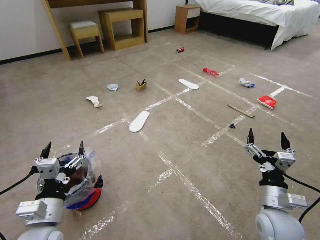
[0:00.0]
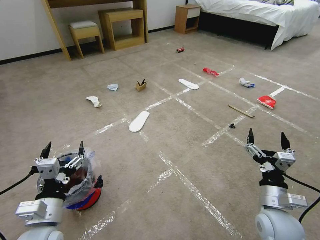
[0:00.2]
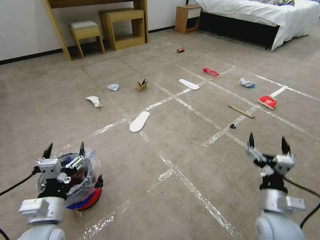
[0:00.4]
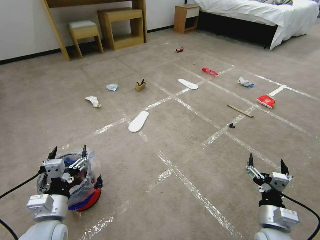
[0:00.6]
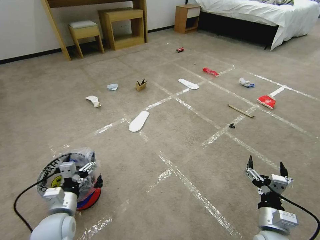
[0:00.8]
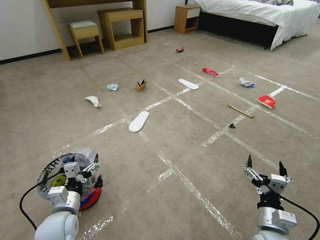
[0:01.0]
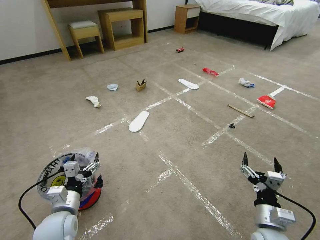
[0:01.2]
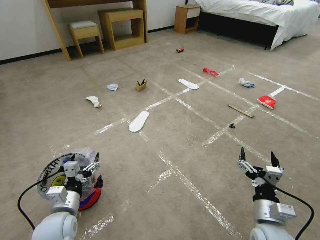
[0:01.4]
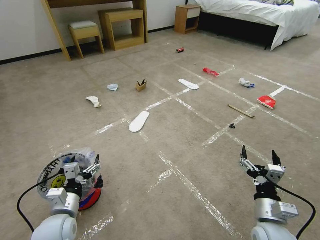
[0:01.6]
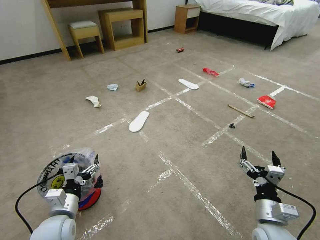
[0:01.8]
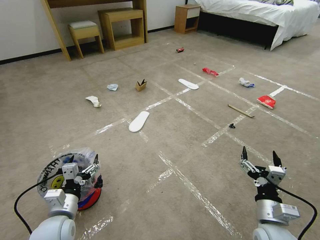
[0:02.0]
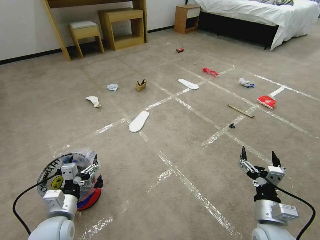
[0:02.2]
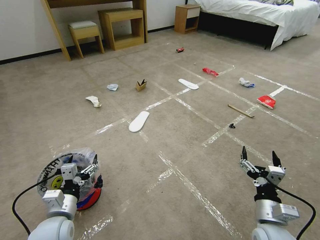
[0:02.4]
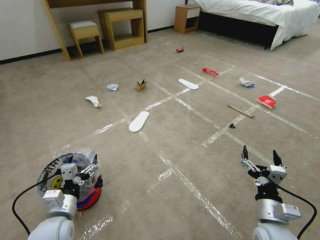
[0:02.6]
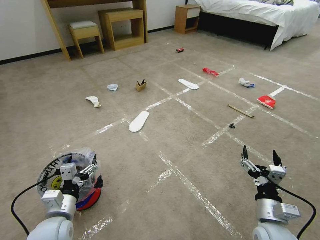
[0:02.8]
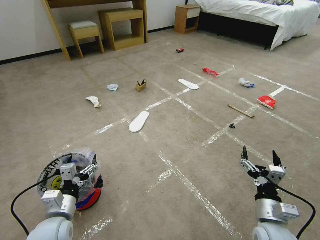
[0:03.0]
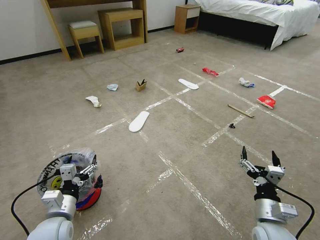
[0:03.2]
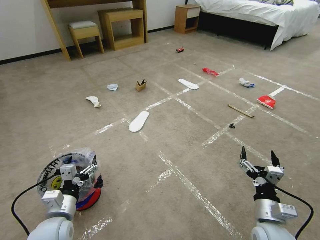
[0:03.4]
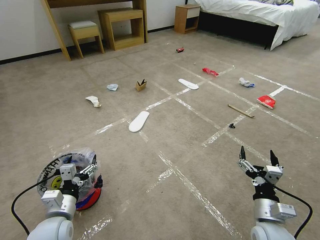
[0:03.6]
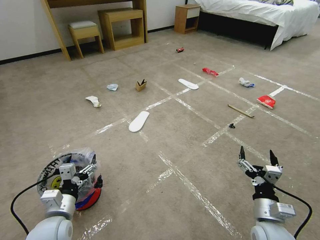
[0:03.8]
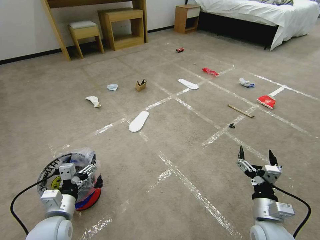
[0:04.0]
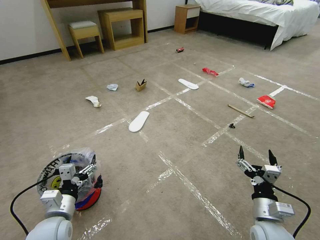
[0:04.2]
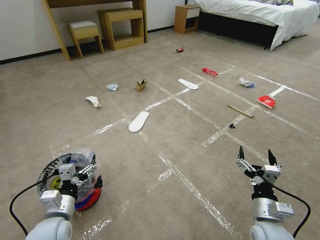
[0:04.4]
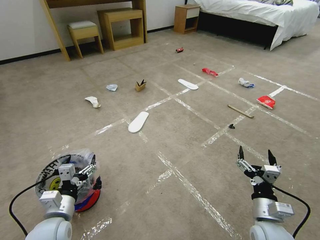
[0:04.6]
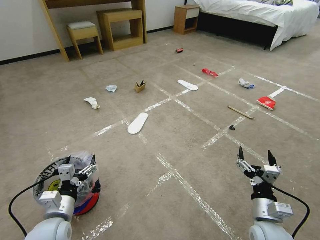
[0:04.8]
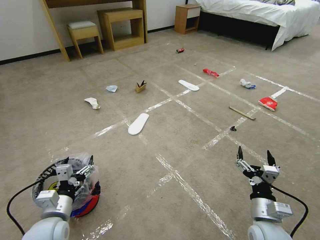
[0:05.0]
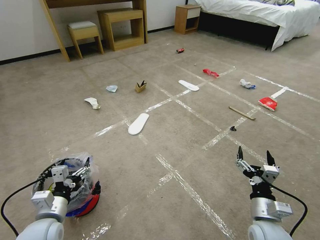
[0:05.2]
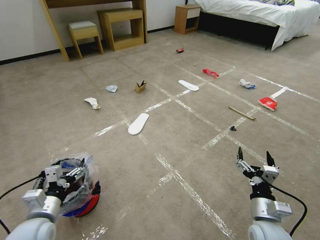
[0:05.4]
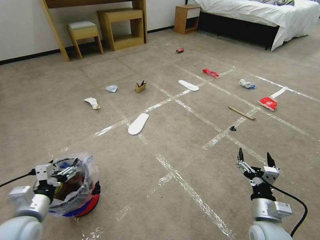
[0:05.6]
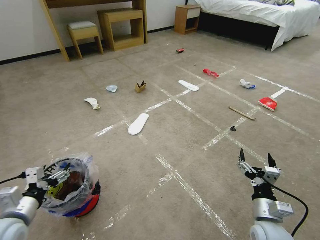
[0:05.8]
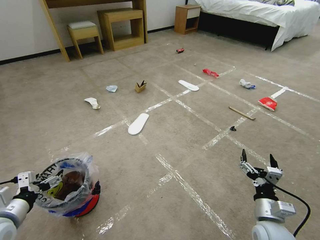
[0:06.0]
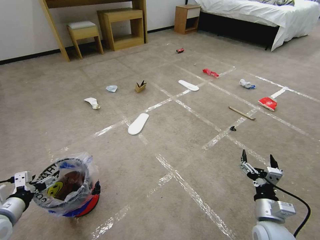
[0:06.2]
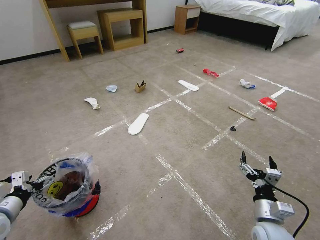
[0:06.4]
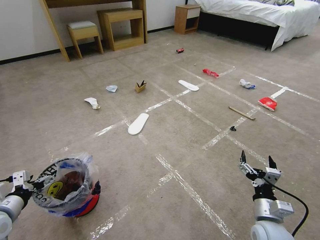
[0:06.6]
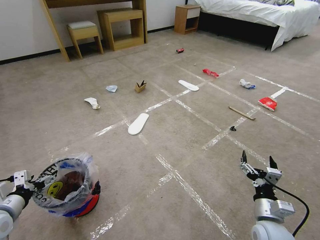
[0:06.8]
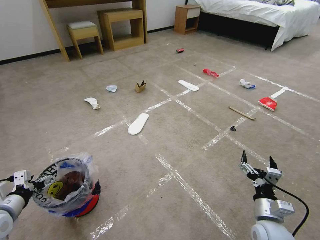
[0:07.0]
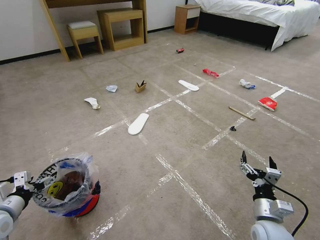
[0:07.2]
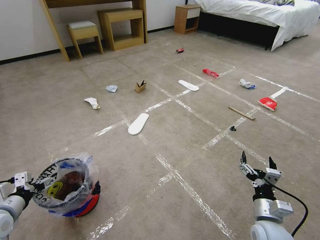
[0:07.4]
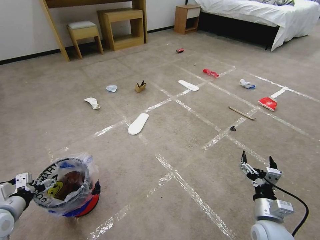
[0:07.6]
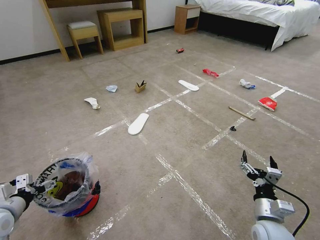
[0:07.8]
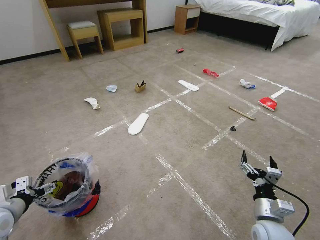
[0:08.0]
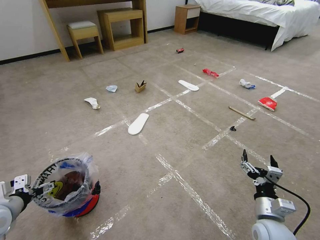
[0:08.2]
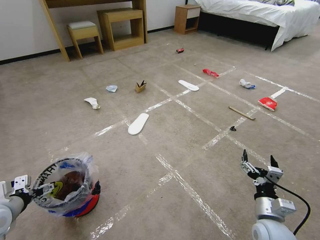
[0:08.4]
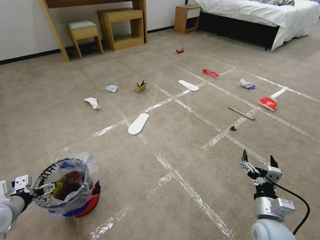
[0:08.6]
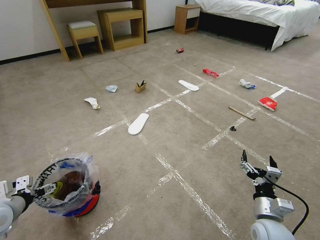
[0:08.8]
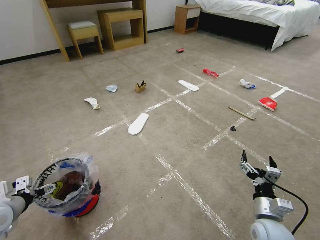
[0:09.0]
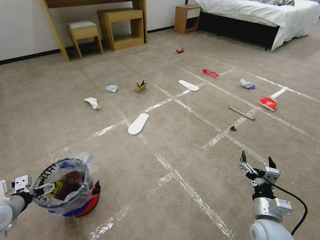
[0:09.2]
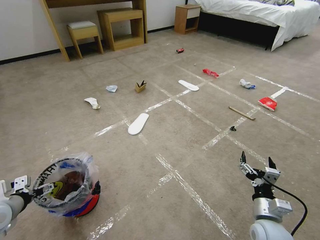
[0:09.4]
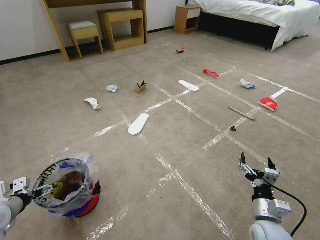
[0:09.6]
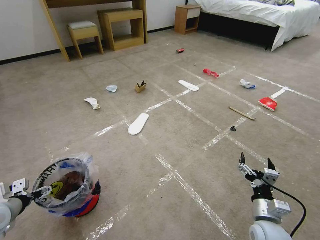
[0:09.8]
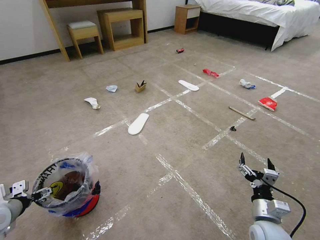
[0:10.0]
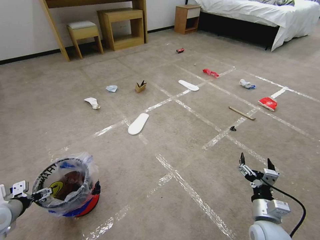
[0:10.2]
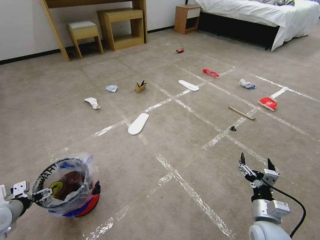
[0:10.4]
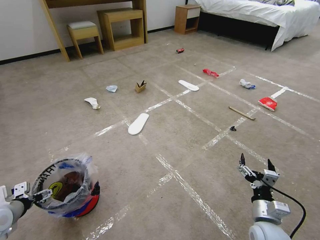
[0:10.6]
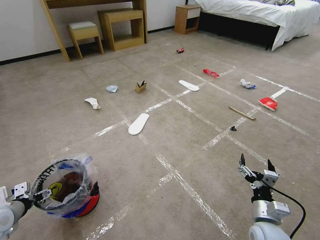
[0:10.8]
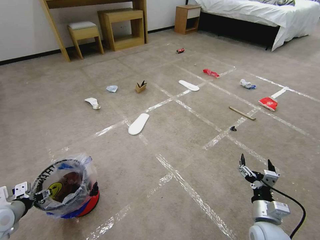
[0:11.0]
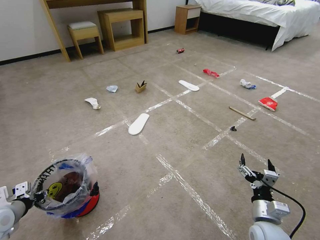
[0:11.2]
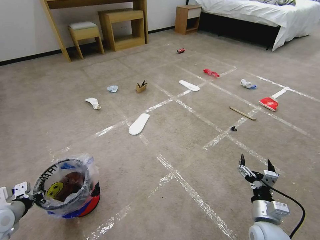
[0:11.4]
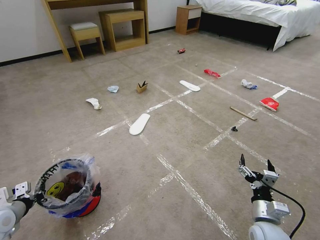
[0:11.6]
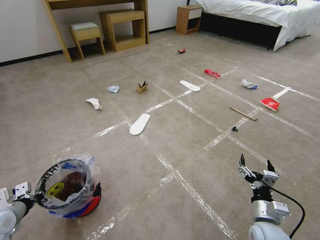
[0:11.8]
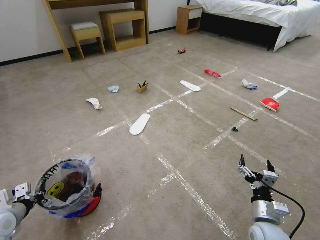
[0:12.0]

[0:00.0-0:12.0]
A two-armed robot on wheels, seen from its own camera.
Task of the whole recording: Pick up the trash bin and place the garbage on the floor into it.
0:01.6 to 0:03.0: Both grippers stay about where they are.
0:03.0 to 0:04.4: Both grippers stay about where they are.
0:04.4 to 0:06.0: The left gripper travels to the left by roughly 15 cm.
0:06.0 to 0:07.6: The left gripper moves approximately 5 cm.
0:07.6 to 0:10.4: The grippers stay close to where they were, moving slightly.
0:10.4 to 0:12.0: The left gripper closes up.

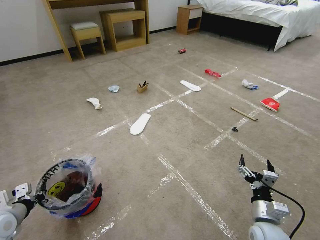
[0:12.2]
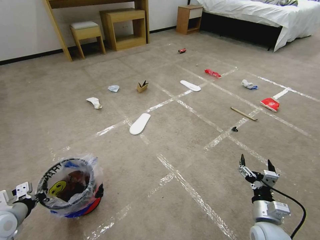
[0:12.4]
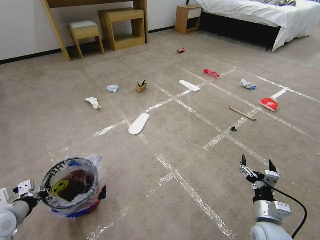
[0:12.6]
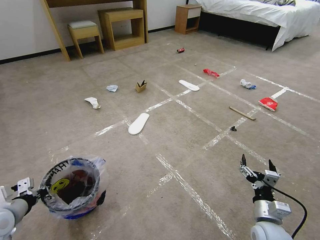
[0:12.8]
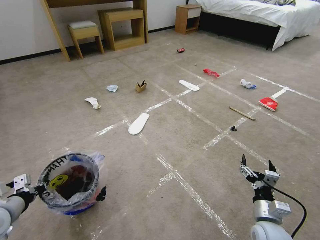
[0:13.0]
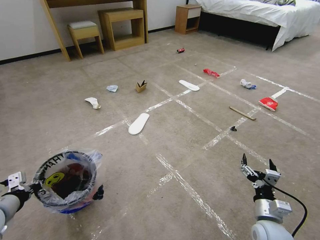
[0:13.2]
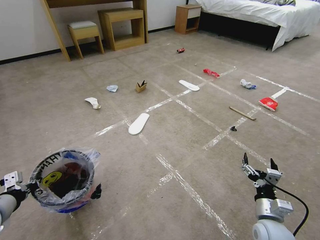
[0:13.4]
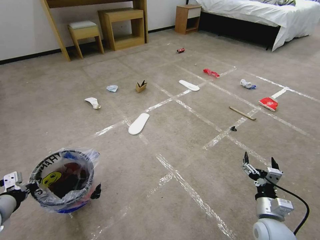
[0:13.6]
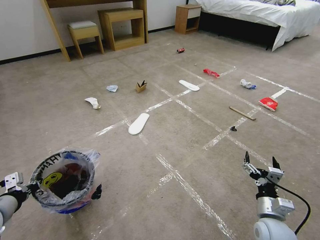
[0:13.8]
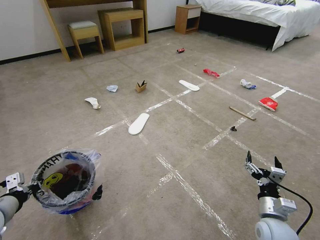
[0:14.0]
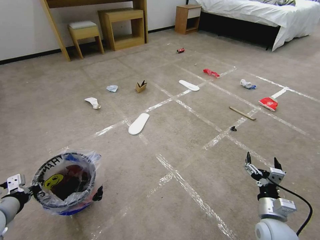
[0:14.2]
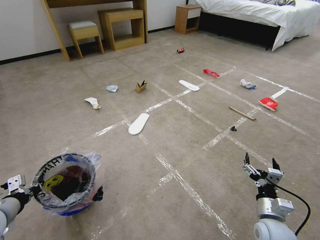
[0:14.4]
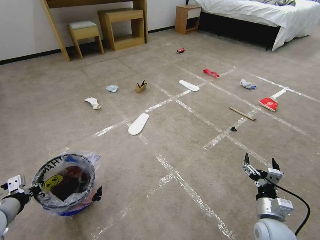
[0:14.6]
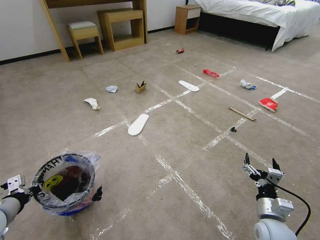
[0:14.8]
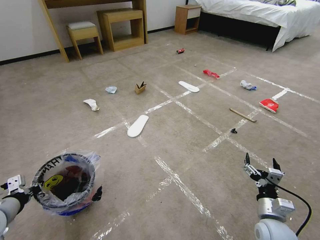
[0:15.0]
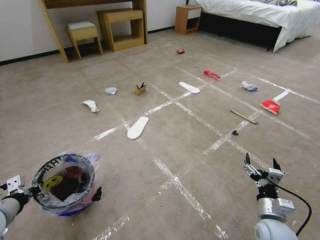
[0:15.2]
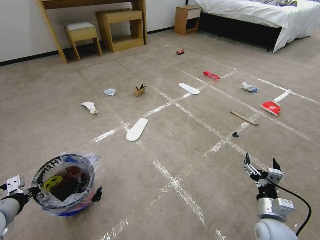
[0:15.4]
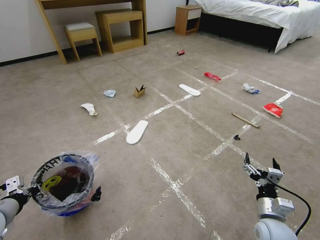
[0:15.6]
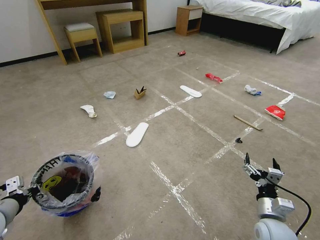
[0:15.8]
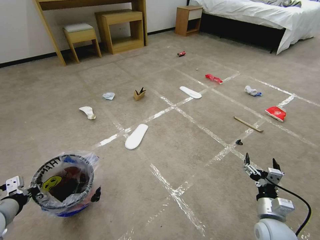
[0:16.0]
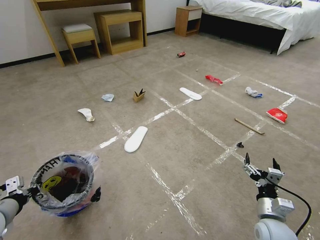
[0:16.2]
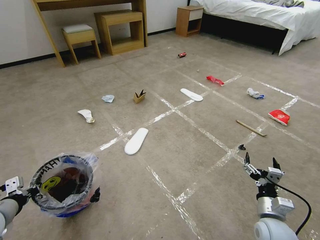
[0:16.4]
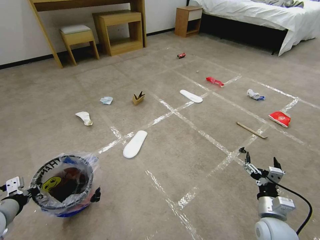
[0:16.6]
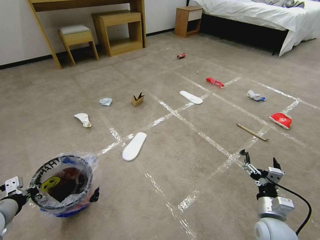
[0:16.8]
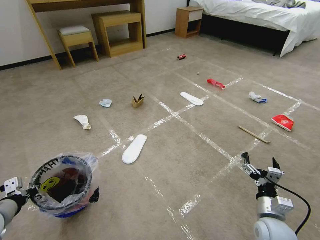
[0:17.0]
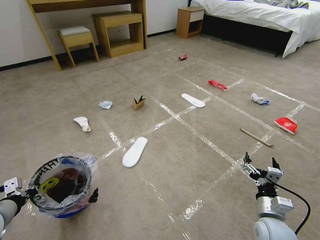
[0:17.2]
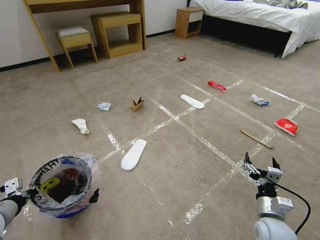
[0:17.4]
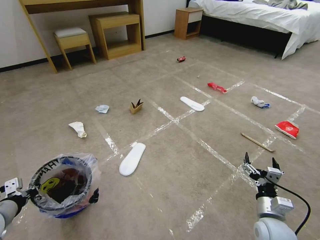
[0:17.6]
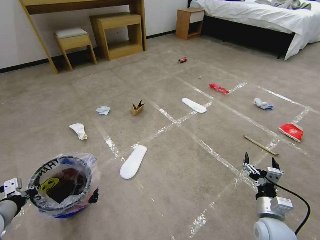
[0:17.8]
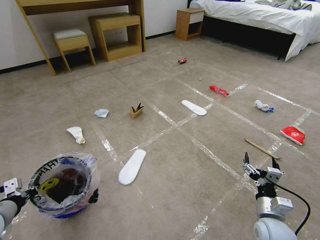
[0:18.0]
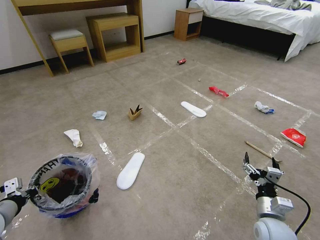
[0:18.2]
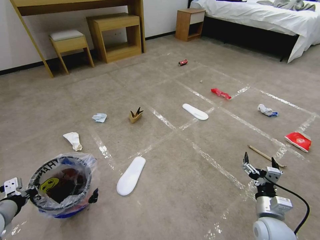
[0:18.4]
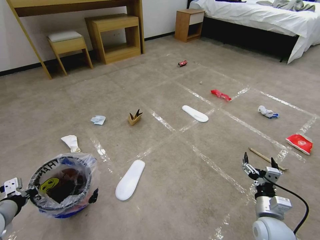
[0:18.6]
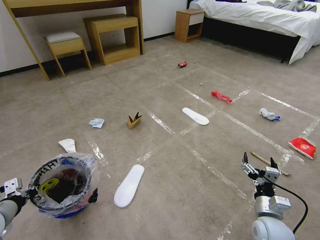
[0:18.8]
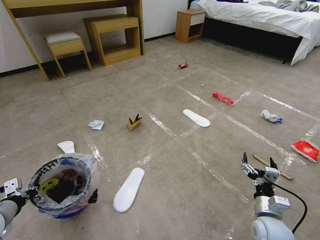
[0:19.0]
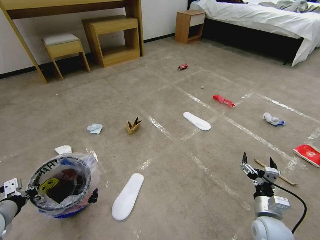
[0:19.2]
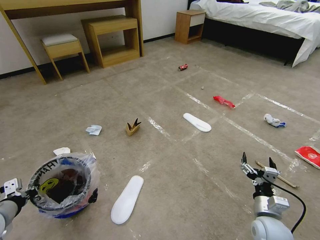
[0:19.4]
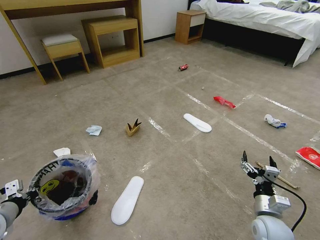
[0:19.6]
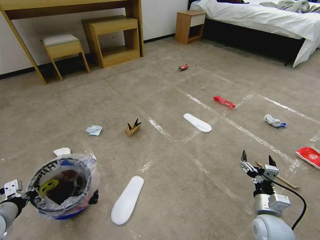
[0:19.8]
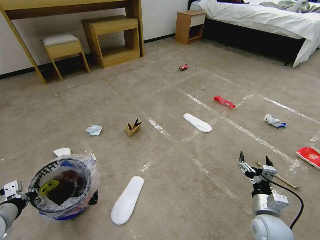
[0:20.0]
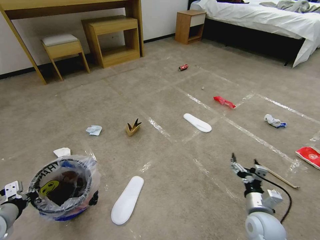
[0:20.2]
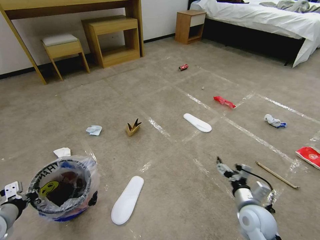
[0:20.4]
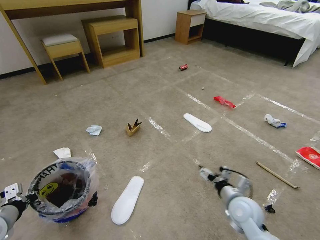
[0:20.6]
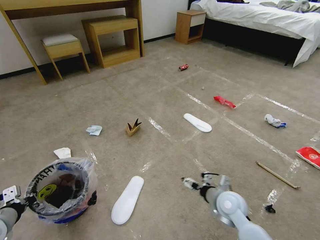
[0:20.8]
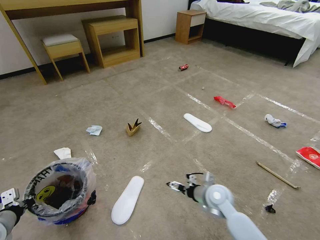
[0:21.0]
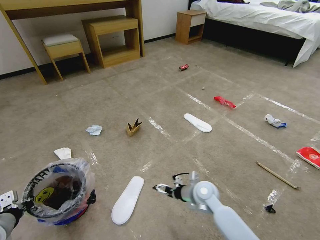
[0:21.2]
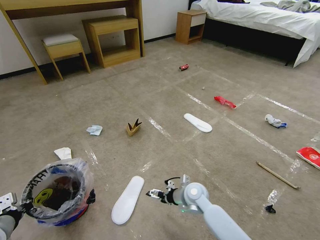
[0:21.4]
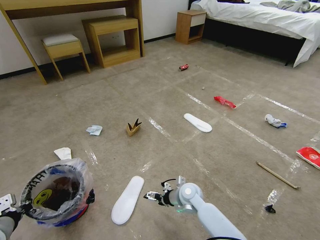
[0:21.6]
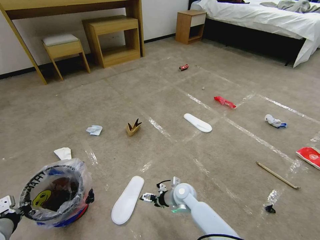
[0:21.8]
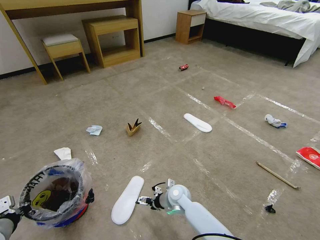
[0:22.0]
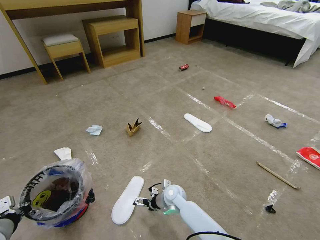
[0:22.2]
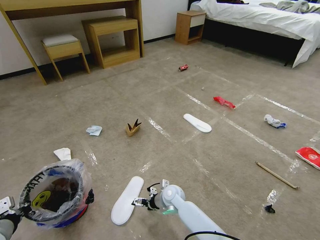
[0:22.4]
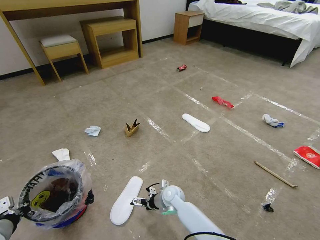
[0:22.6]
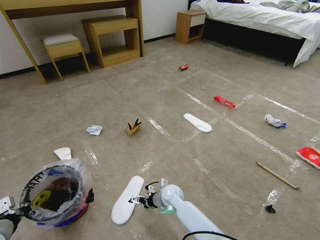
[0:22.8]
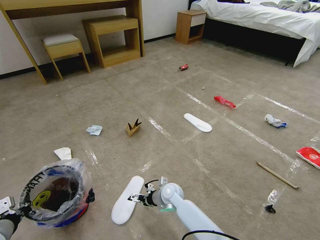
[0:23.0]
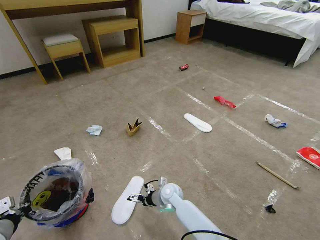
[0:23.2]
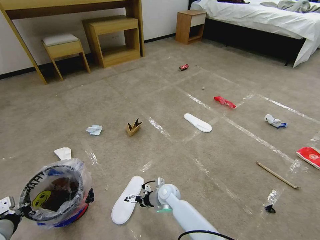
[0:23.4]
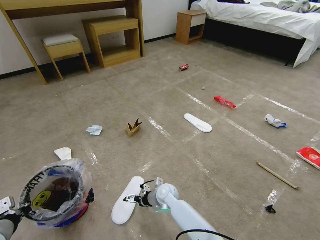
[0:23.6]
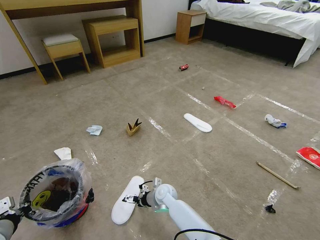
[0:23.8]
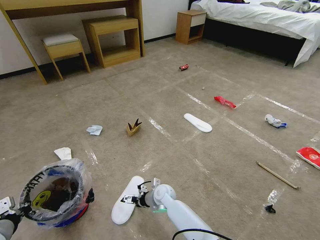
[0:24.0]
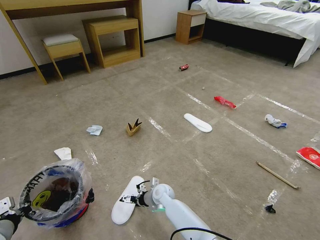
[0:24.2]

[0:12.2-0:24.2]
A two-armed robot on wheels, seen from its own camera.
Task of the whole recording: Pick up the trash bin and place the garbage on the floor into it.
0:12.2 to 0:13.8: The left gripper shifts approximately 5 cm upward.
0:13.8 to 0:15.2: There are only small adjustments of the grippers.
0:15.2 to 0:16.6: Both grippers stay put.
0:19.8 to 0:21.2: The right gripper moves to the left and forward, roughly 20 cm.
0:21.2 to 0:22.6: The right gripper goes about 15 cm to the left and downward.
0:22.6 to 0:24.2: There are only small adjustments of the grippers.
